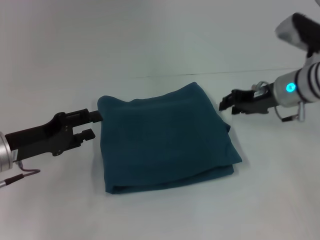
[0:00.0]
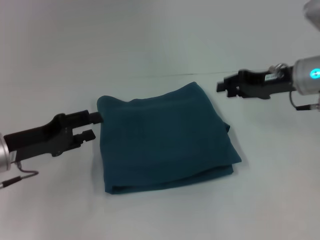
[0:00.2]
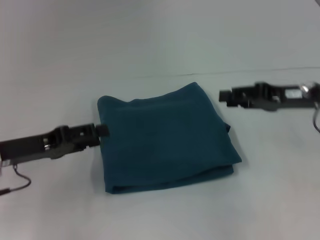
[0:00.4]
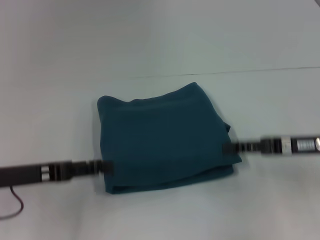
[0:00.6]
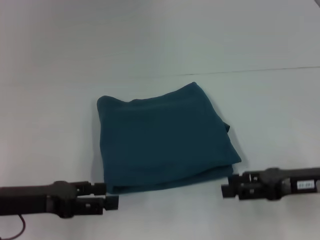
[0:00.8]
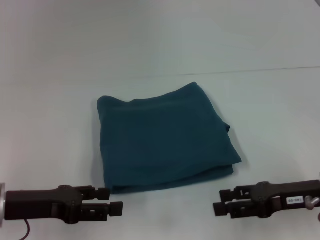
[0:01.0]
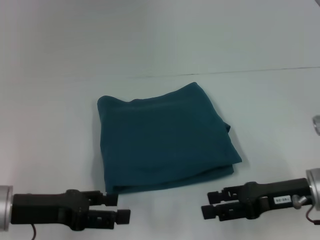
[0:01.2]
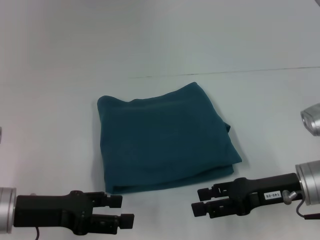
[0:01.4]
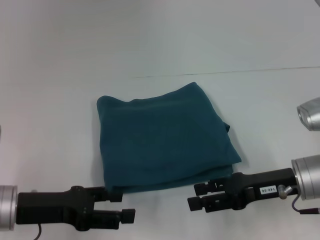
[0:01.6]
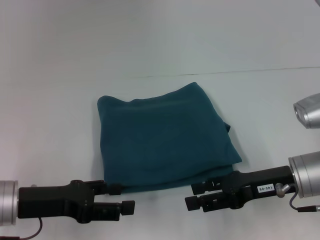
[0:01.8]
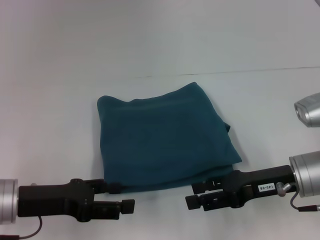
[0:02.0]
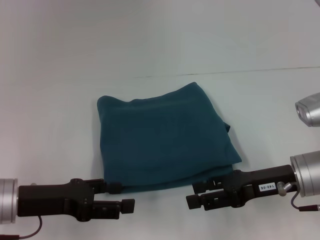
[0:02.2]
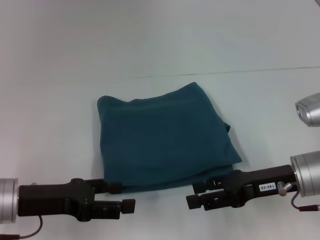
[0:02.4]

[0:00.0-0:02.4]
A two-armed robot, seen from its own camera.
0:00.0 to 0:01.2: The left gripper shifts roughly 5 cm backward, while the right gripper goes roughly 15 cm backward, and opens.
0:01.2 to 0:02.4: The grippers move only a little.

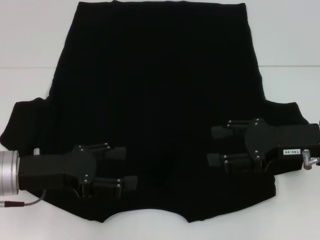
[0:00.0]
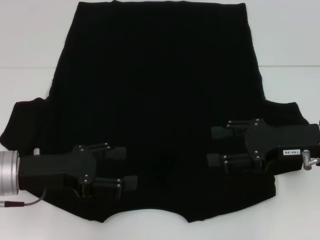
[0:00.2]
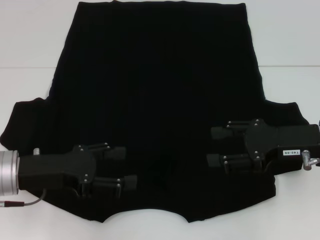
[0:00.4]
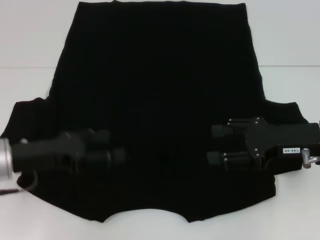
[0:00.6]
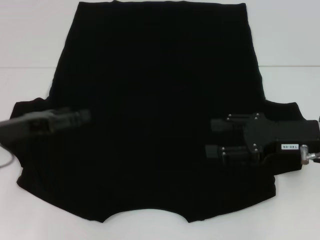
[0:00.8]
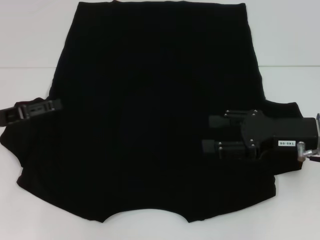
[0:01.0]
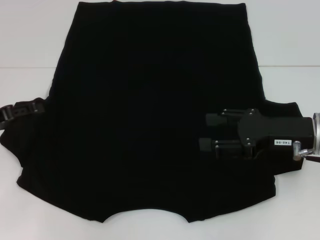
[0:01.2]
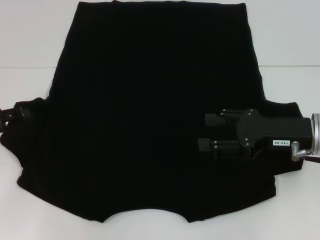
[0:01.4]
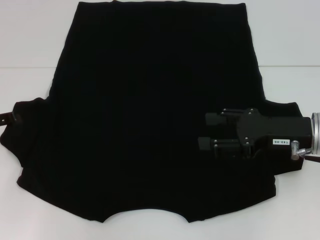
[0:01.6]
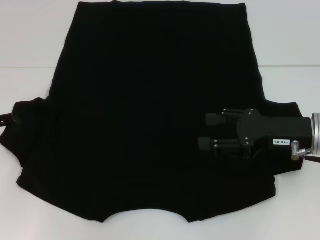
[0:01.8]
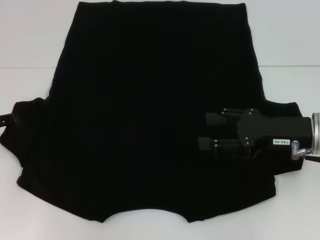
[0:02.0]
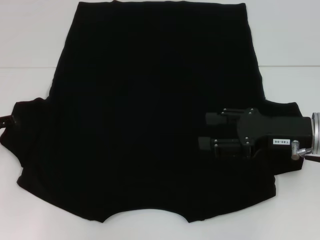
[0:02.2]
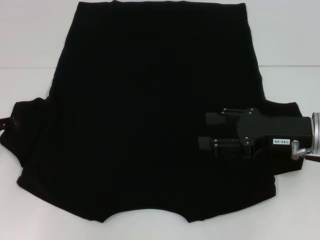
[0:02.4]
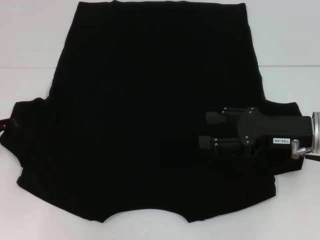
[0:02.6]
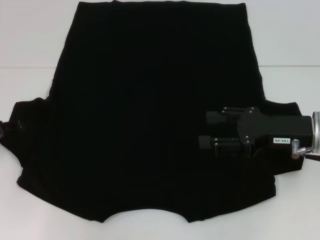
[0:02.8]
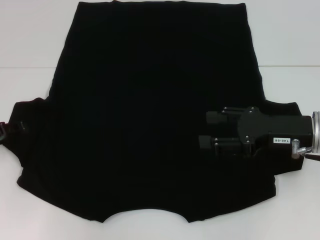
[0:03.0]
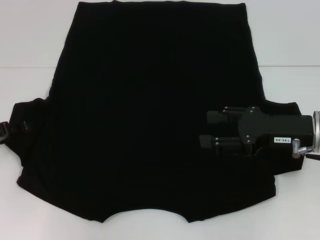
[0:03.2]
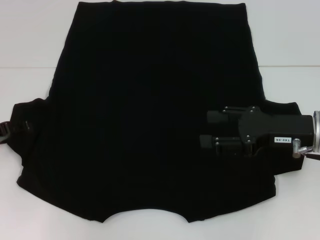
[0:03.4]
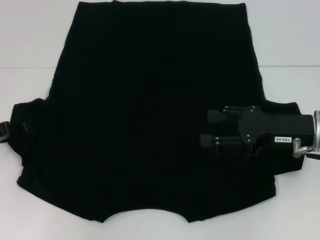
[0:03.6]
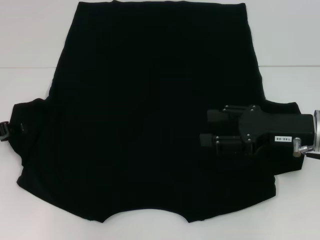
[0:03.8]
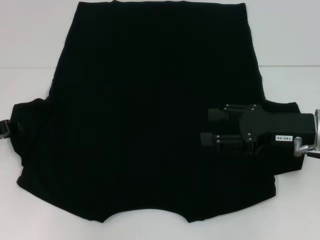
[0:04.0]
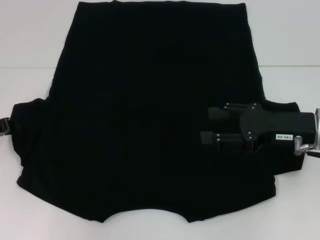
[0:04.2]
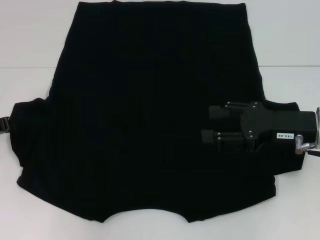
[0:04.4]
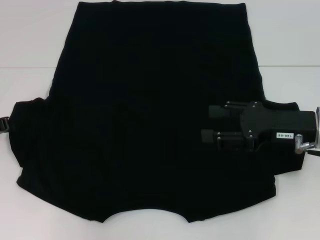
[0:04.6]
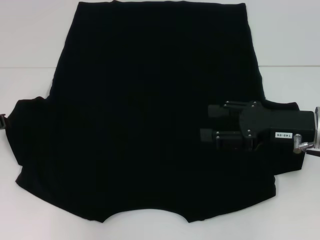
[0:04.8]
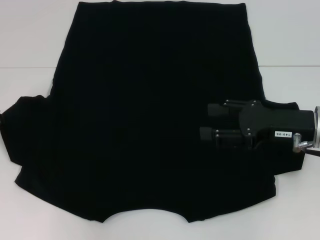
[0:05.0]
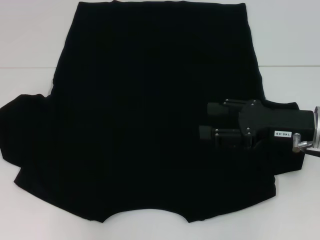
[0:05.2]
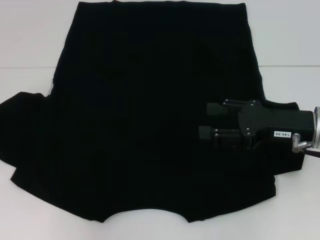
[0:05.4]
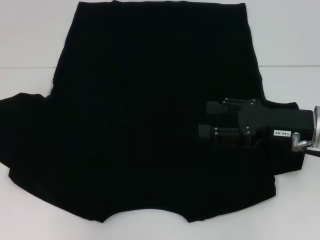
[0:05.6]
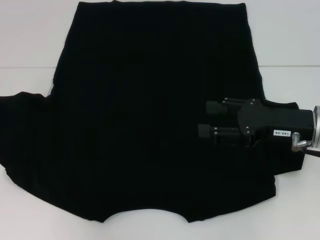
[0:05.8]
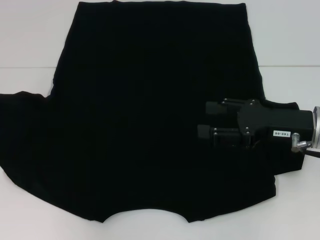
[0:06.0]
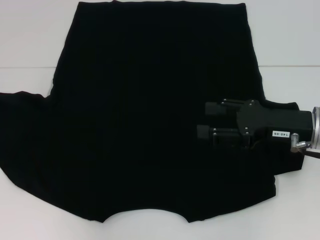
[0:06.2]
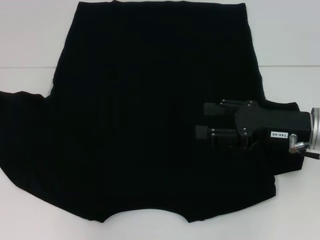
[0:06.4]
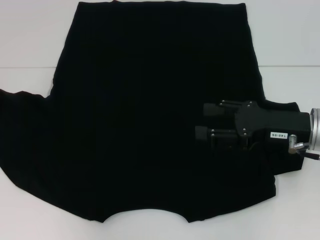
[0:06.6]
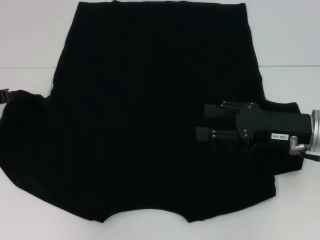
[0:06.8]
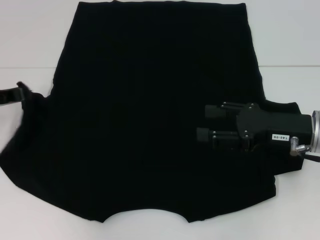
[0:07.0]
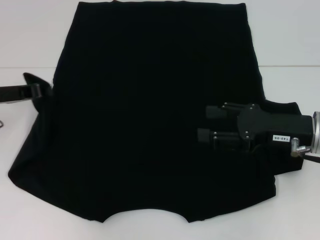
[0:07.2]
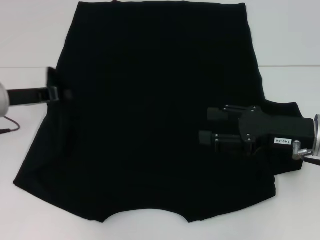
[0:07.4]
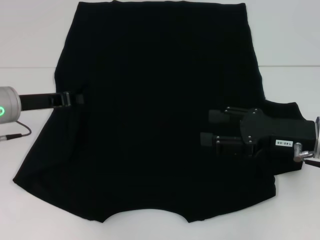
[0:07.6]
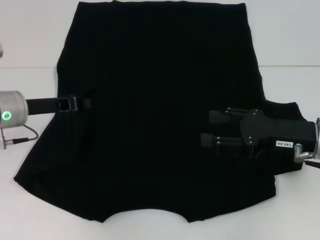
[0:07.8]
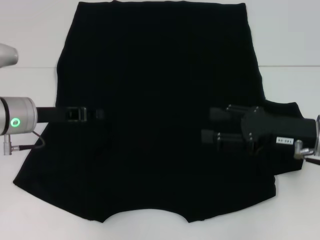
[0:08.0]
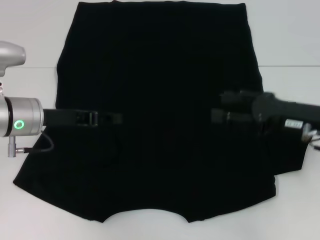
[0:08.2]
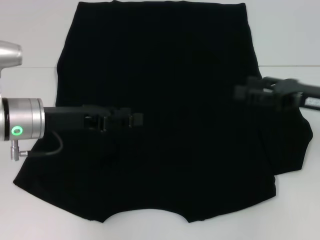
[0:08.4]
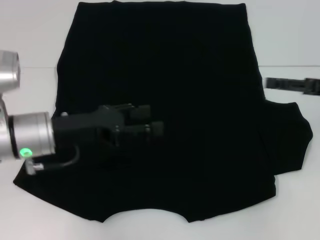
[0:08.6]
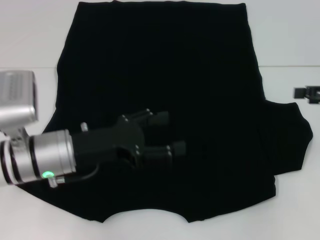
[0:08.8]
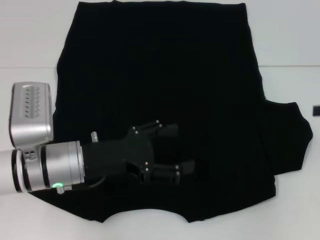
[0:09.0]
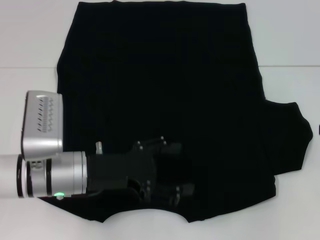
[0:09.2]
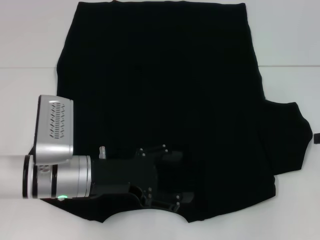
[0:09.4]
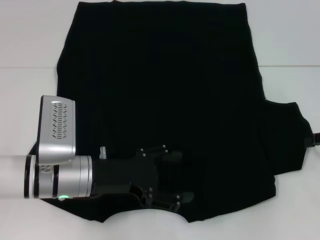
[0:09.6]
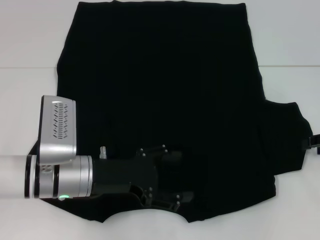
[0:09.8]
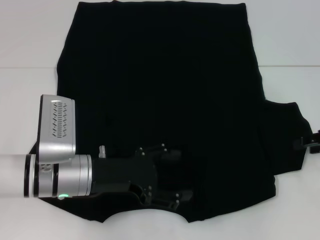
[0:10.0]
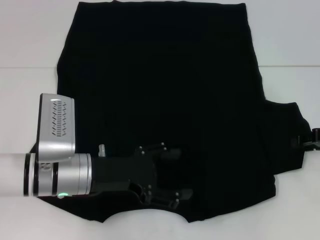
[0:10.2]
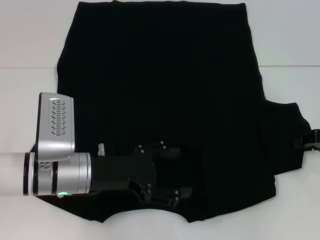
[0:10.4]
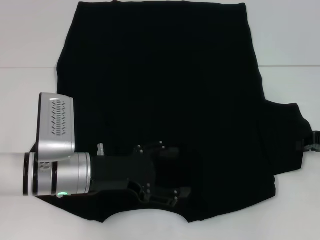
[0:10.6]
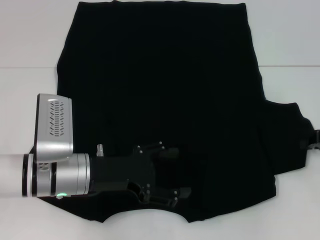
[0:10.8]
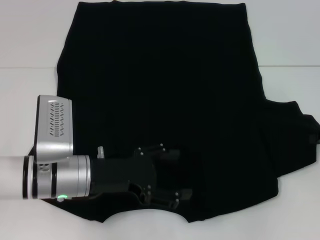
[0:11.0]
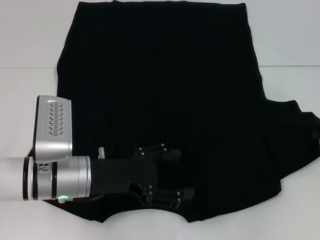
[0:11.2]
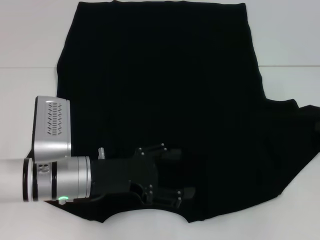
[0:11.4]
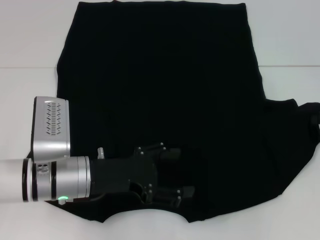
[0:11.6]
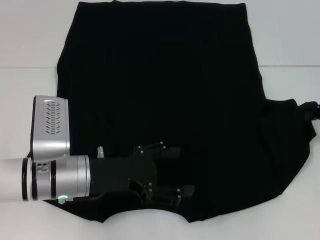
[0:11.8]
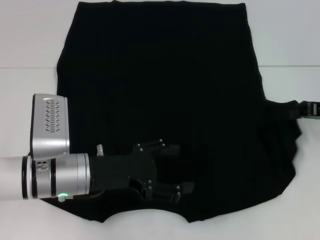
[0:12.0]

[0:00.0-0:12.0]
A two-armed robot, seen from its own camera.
Step, 0:00.0 to 0:07.8: Fold the bottom left sleeve with your left hand.
0:00.0 to 0:01.6: The left gripper moves to the left, about 10 cm.
0:01.6 to 0:03.0: There are only small adjustments of the grippers.
0:04.4 to 0:06.0: The grippers stay close to where they were, moving slightly.
0:06.0 to 0:07.6: The left gripper shifts some 10 cm to the right.
0:07.6 to 0:09.0: The right gripper moves to the right, about 15 cm; the left gripper heads to the right and backward, covering about 15 cm, and opens.
0:09.0 to 0:10.4: The right gripper shifts about 5 cm downward, and closes up.
0:10.4 to 0:12.0: The right gripper closes its fingers.

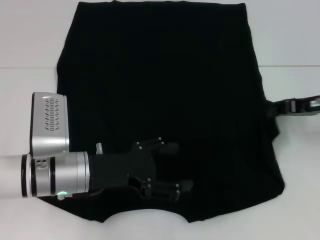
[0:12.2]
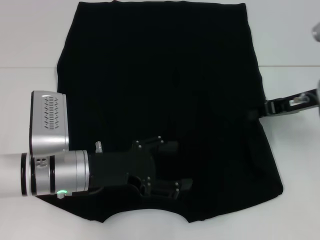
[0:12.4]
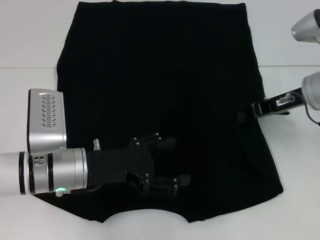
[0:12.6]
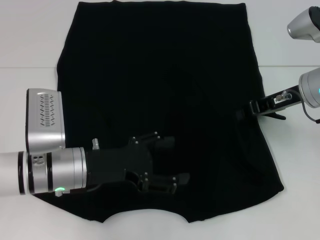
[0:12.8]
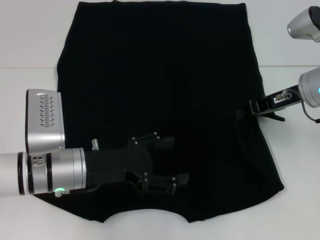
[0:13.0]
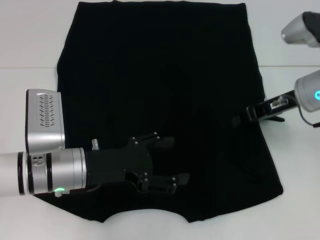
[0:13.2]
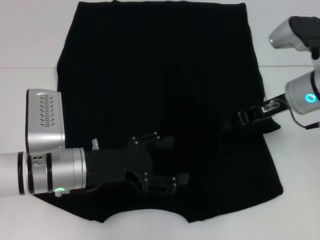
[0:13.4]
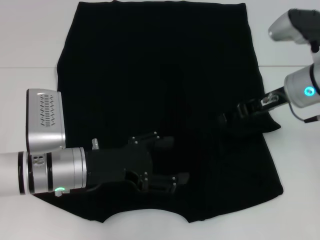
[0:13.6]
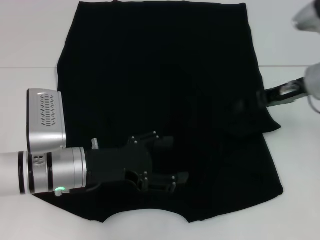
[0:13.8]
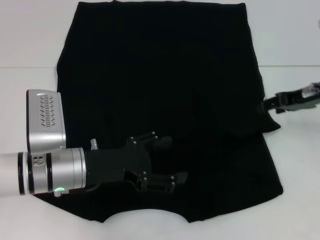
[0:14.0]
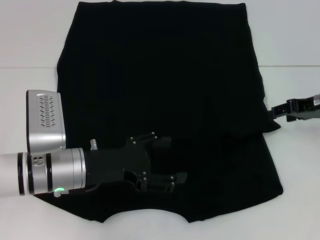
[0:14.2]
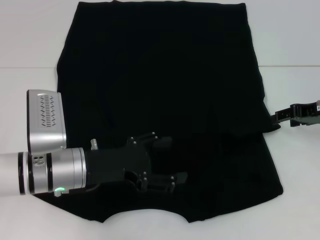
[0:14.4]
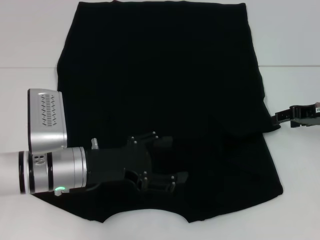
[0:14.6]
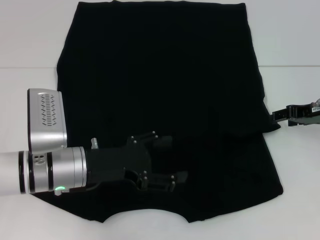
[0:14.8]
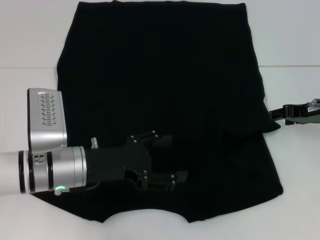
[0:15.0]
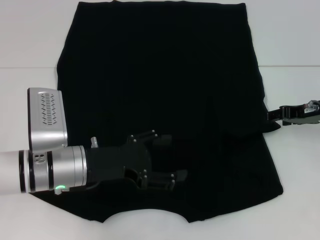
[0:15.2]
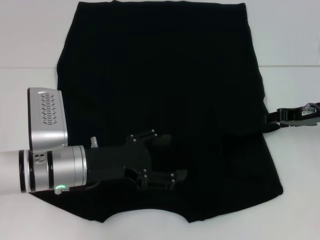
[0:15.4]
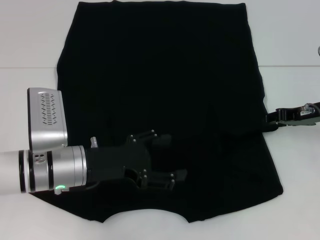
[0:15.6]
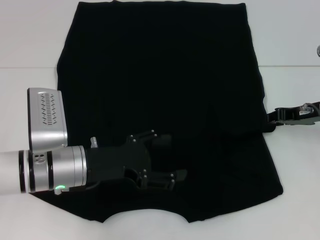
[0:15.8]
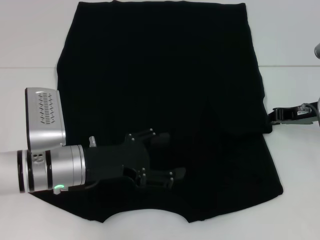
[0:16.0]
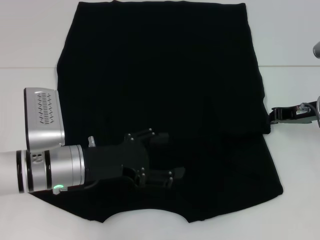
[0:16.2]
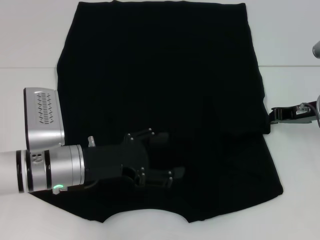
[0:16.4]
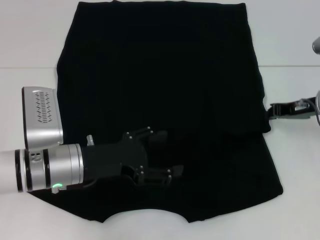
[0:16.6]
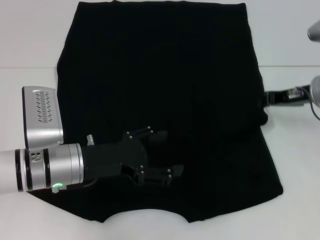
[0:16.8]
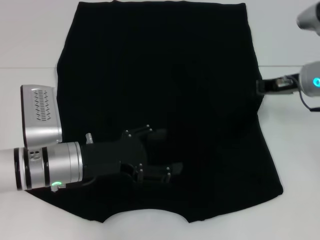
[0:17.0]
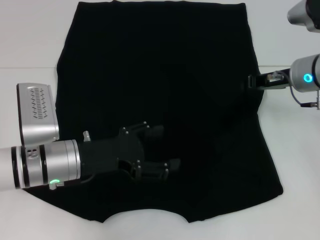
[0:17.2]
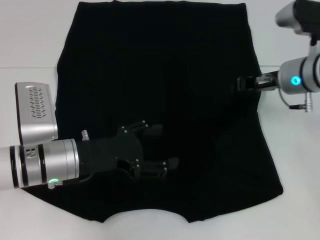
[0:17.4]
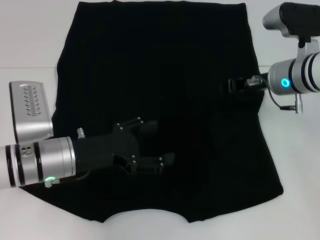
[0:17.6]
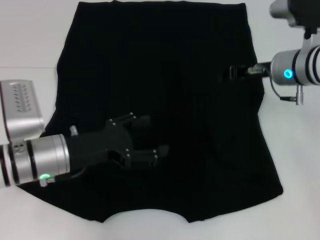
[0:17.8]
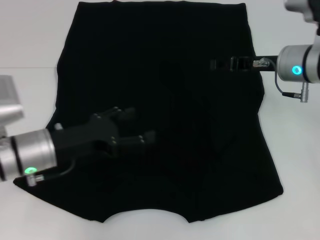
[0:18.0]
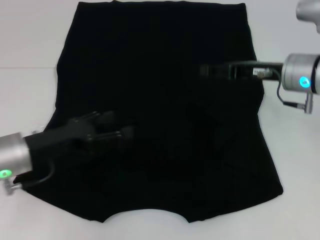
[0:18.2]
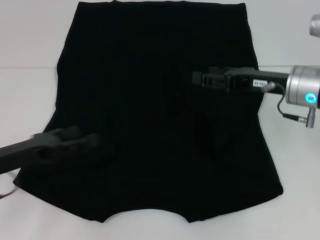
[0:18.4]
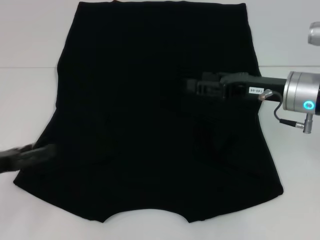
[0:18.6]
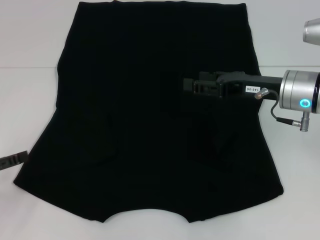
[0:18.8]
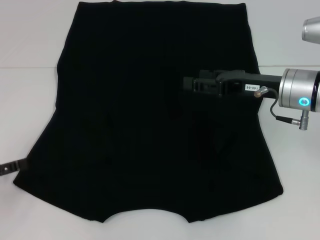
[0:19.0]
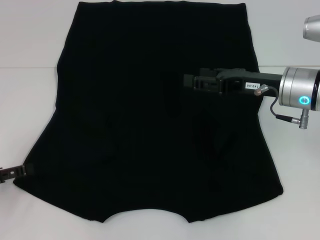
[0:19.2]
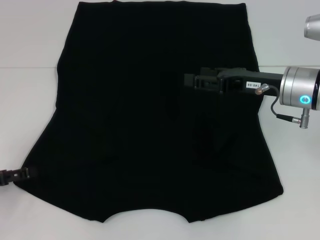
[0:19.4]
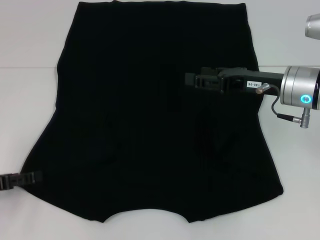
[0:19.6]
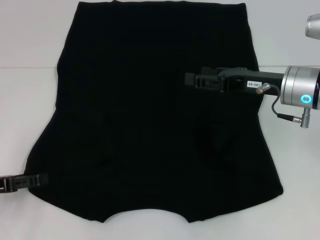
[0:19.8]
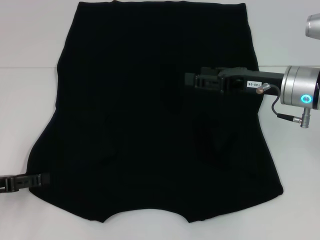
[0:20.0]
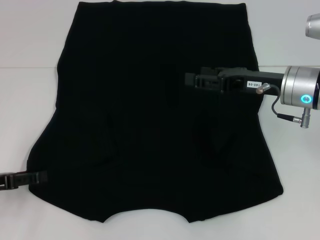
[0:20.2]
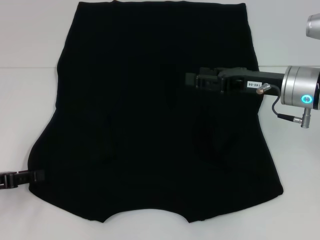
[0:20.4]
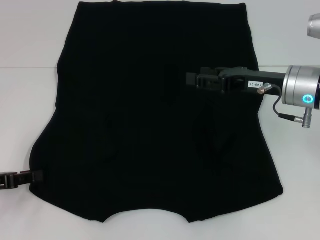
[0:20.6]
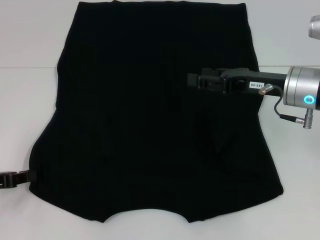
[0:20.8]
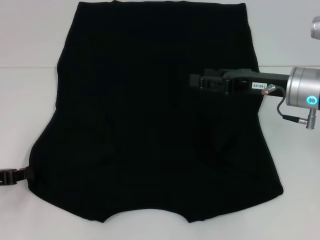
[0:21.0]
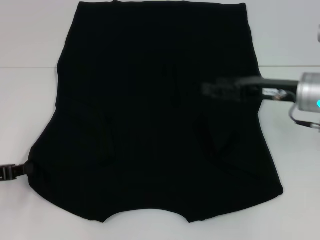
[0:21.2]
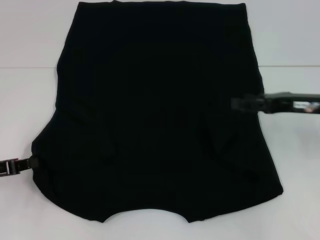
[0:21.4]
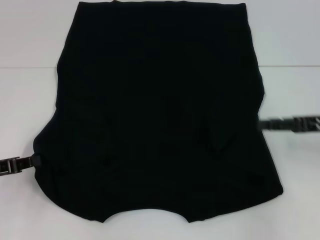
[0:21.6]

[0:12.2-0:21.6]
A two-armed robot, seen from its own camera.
Step, 0:12.2 to 0:17.6: Fold the bottom right sleeve with your right hand.
Step, 0:17.8 to 0:21.0: Grab the bottom left corner with your left hand.
0:12.2 to 0:13.8: The right gripper goes roughly 5 cm to the left, and opens.
0:13.8 to 0:15.4: The right gripper changes place by some 5 cm.
0:15.4 to 0:17.0: The right gripper changes place by about 5 cm, and closes up.
0:17.0 to 0:18.4: The right gripper changes place by about 5 cm, and opens up, while the left gripper shifts some 10 cm to the left.
0:18.4 to 0:20.0: The left gripper heads to the left, covering roughly 5 cm.
0:20.0 to 0:21.6: The right gripper shifts some 10 cm to the right, while the left gripper closes its fingers.
